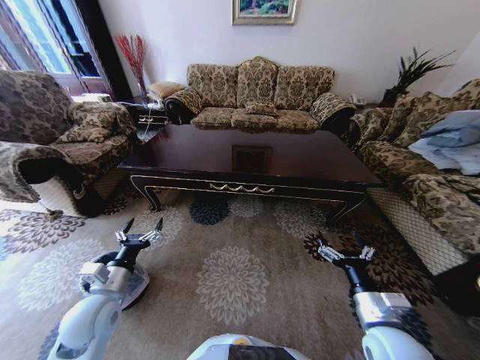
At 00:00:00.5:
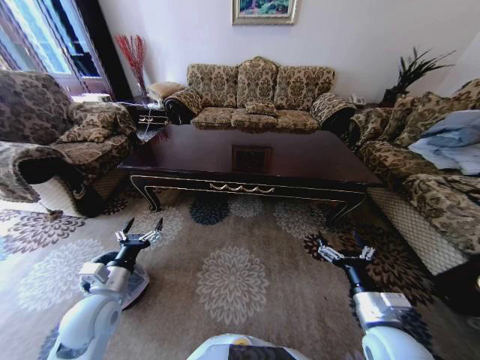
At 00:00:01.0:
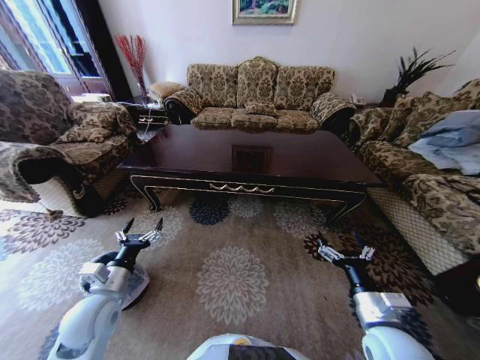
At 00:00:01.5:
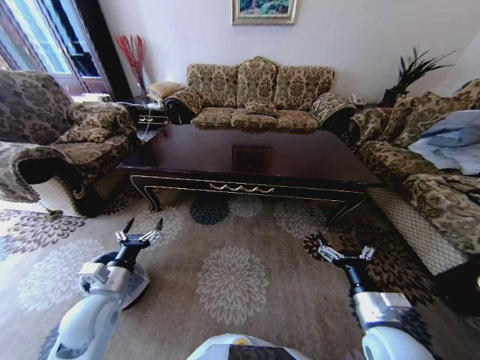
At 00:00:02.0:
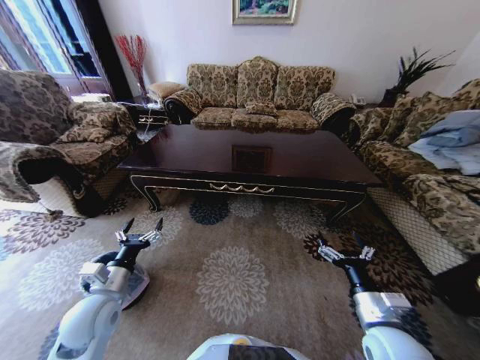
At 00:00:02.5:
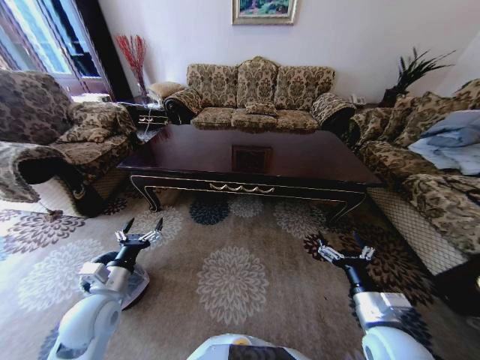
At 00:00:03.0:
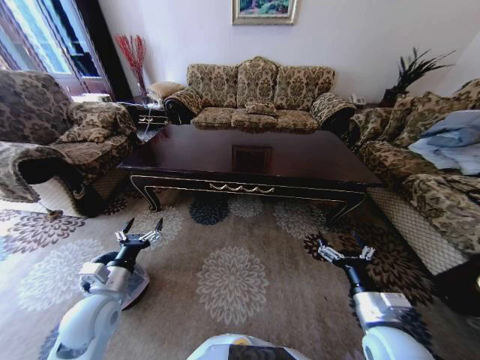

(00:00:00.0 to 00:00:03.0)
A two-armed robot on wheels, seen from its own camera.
Task of the whole recording: Move to the front of the table and place the trash on the table into the trash bin.
00:00:00.0 - 00:00:03.0: Both grippers stay about where they are.

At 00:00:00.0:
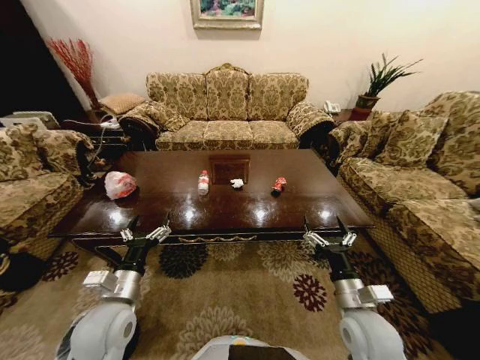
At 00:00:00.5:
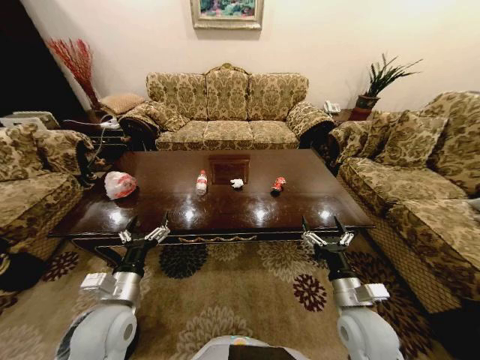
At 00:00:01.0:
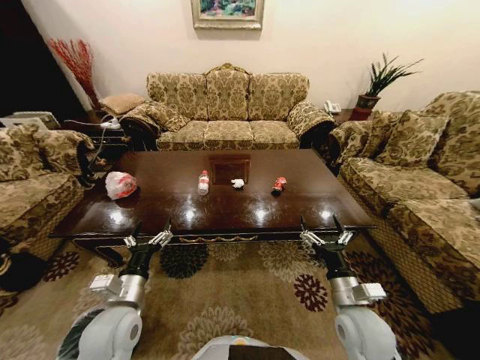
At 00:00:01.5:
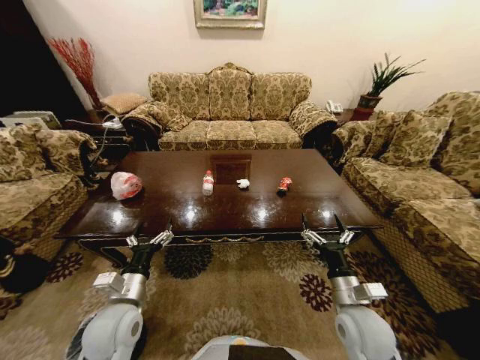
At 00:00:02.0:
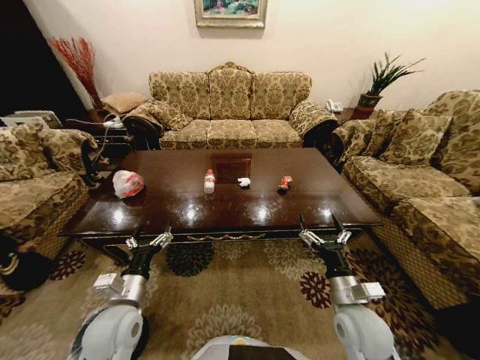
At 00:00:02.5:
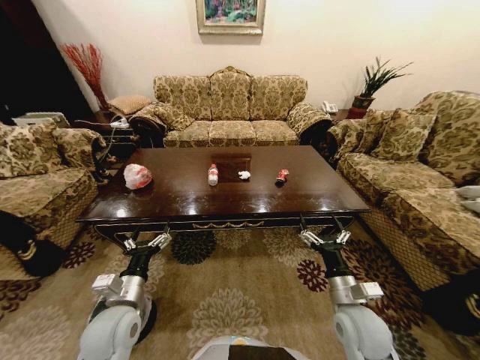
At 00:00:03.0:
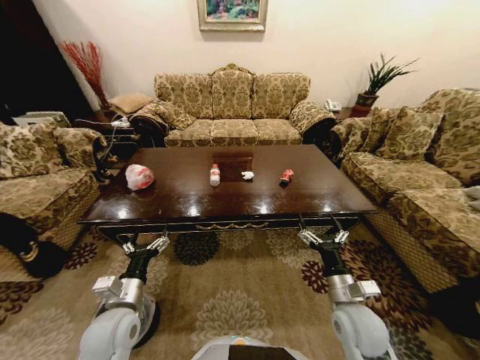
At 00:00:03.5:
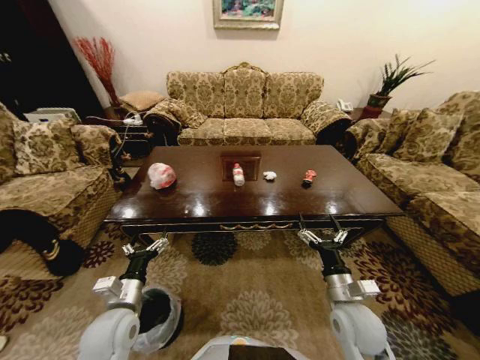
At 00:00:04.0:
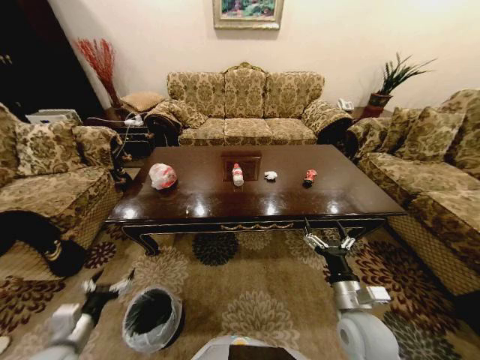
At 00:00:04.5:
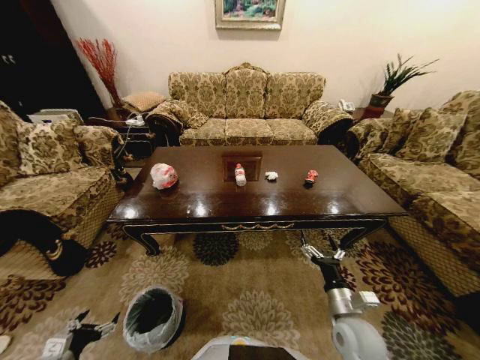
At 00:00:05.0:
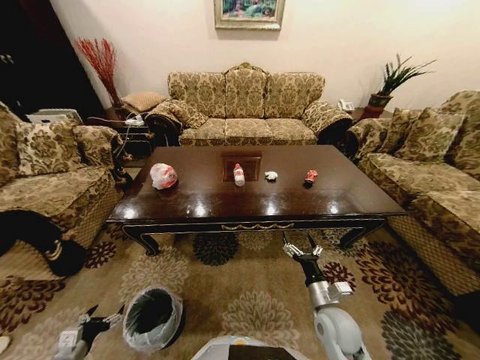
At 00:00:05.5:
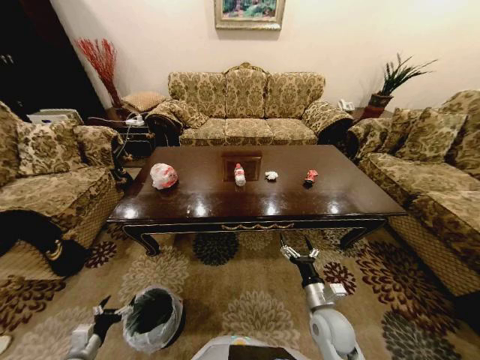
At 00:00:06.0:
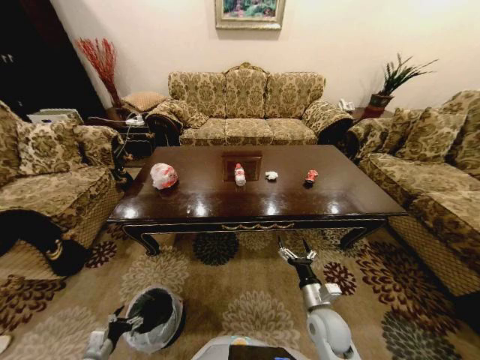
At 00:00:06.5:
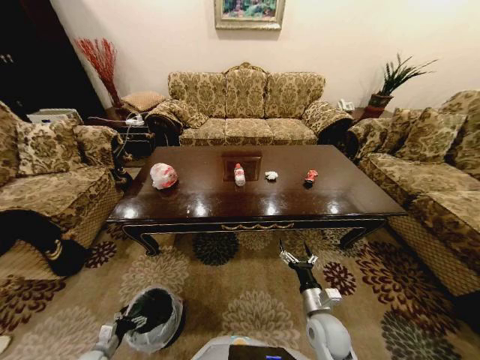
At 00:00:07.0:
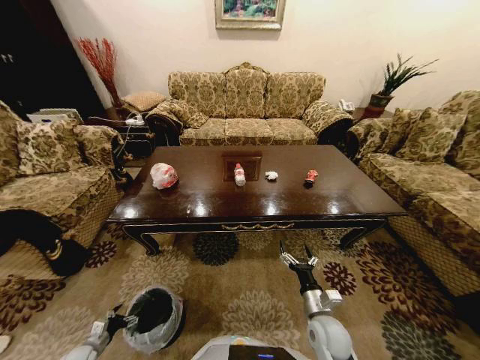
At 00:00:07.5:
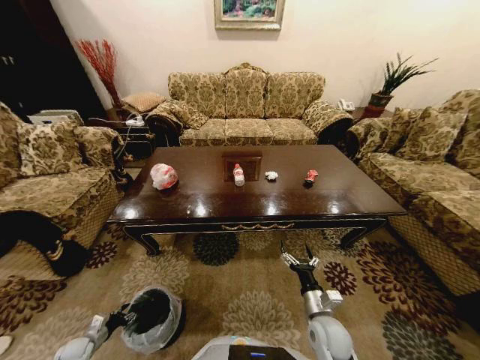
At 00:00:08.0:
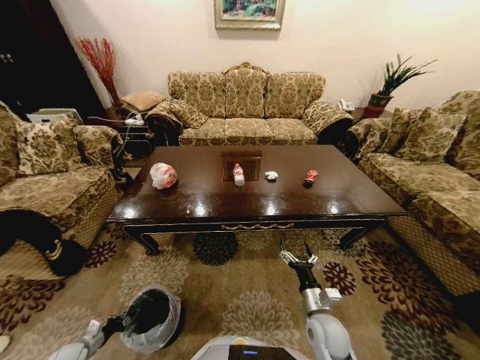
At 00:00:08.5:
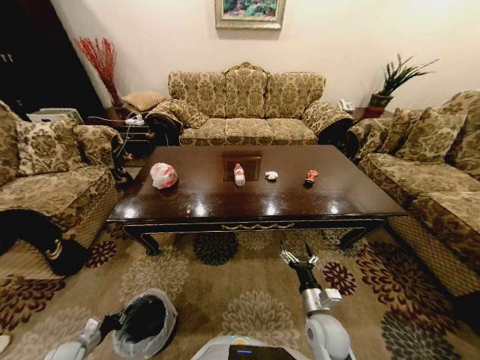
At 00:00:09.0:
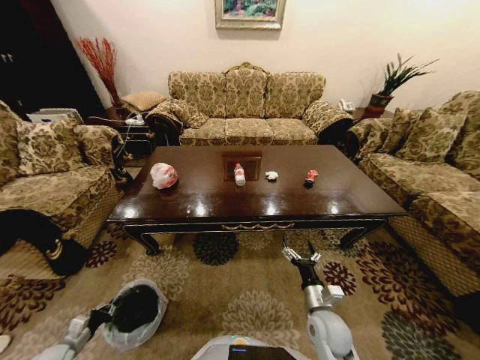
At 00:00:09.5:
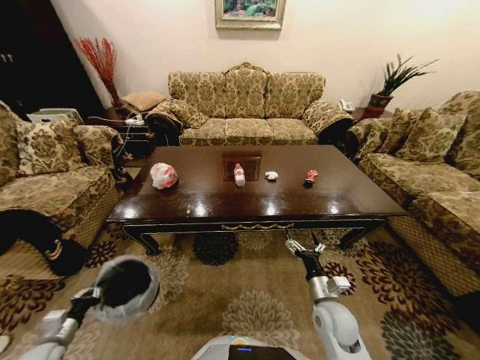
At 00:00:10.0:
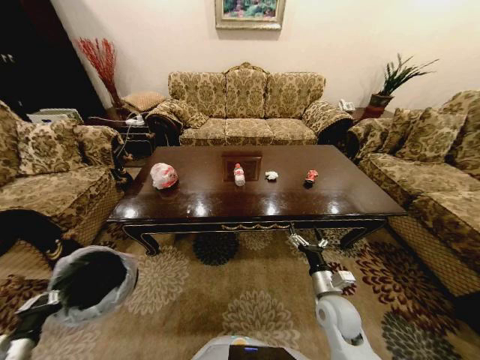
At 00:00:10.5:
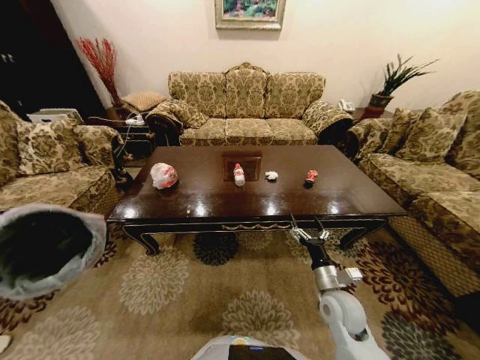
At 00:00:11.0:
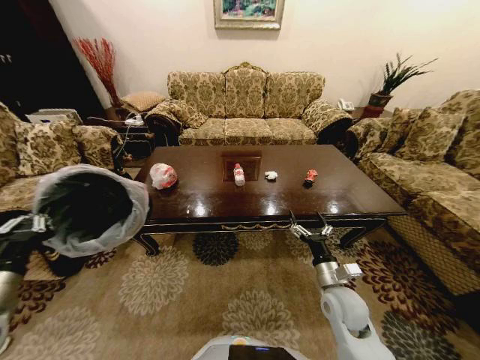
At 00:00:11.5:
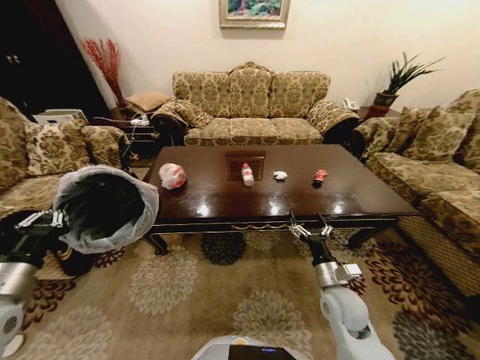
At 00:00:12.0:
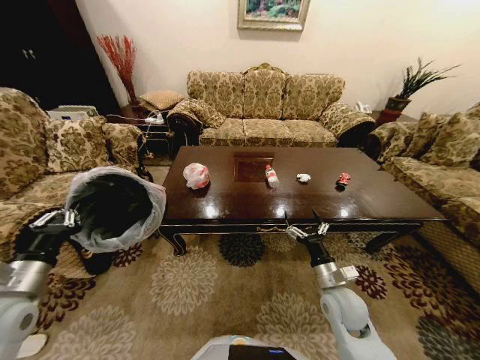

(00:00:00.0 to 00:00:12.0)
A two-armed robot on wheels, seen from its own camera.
Task of the whole recording: Move to the front of the table and place the trash on the table into the trash bin.
00:00:02.0 - 00:00:04.0: The left gripper moves to the left and backward, roughly 15 cm.
00:00:04.0 - 00:00:06.0: The right gripper heads downward, covering approximately 10 cm, while the left gripper shifts approximately 20 cm downward.
00:00:06.0 - 00:00:08.0: The left gripper moves to the left and downward, some 10 cm, and closes its fingers.
00:00:08.0 - 00:00:10.0: The left gripper shifts about 25 cm upward; the right gripper shifts by some 5 cm.
00:00:10.0 - 00:00:12.0: The left gripper shifts about 20 cm upward, forward and to the right.

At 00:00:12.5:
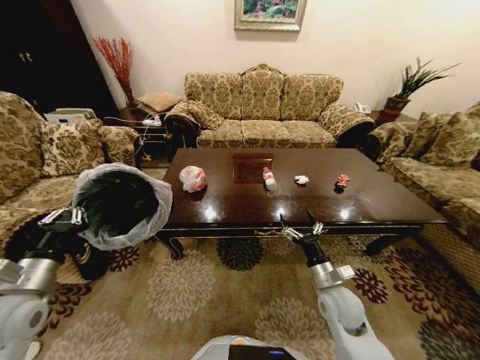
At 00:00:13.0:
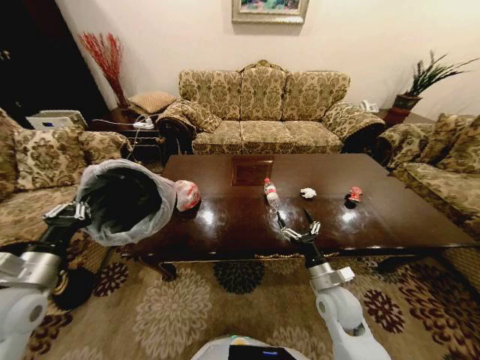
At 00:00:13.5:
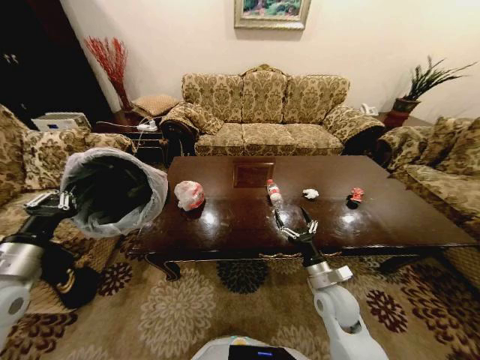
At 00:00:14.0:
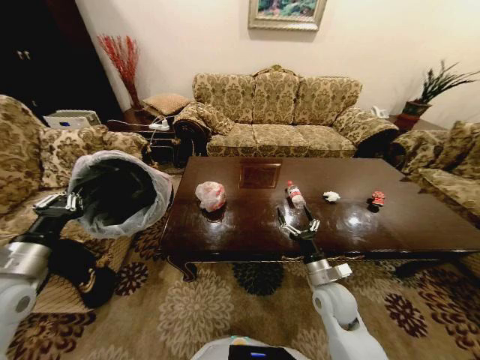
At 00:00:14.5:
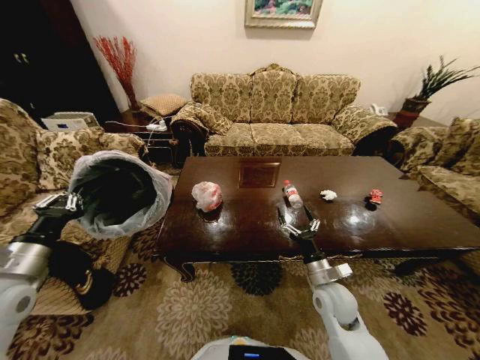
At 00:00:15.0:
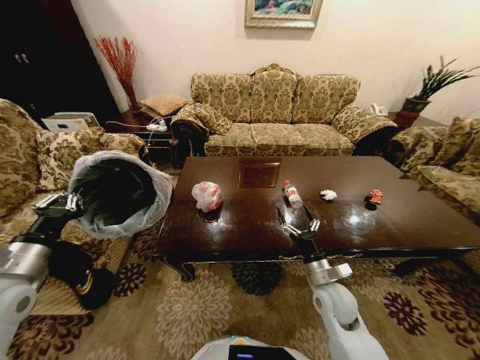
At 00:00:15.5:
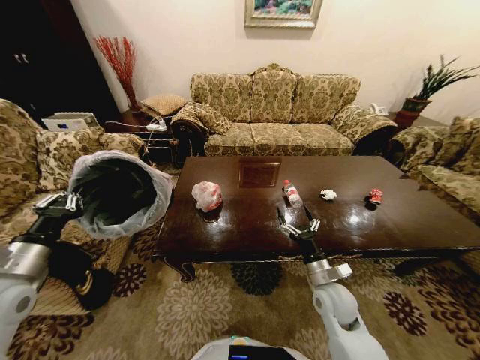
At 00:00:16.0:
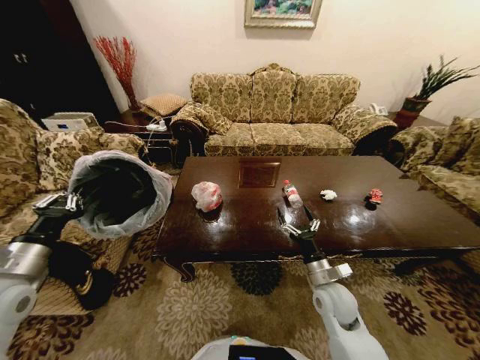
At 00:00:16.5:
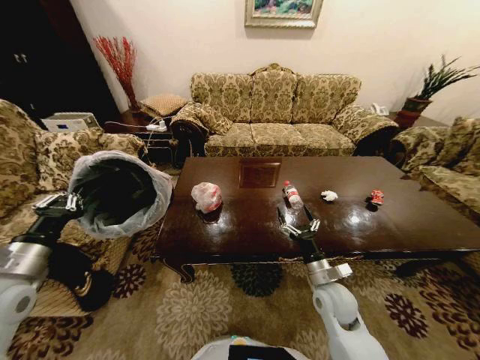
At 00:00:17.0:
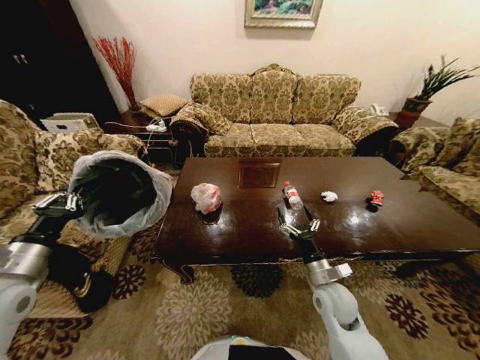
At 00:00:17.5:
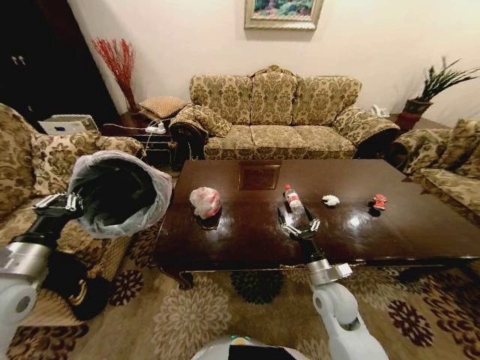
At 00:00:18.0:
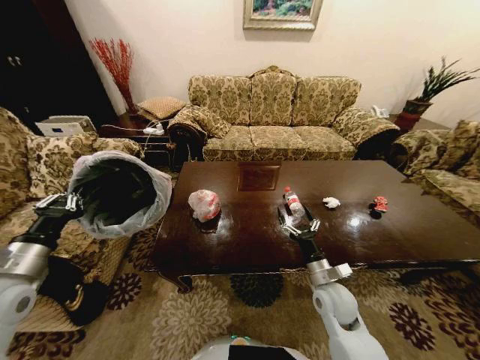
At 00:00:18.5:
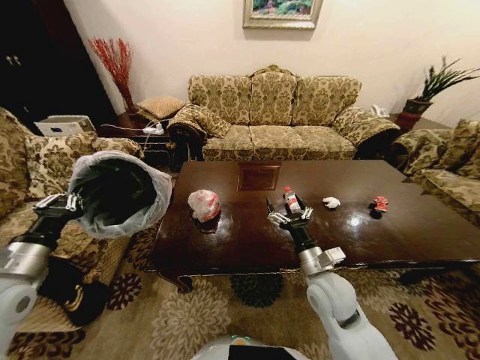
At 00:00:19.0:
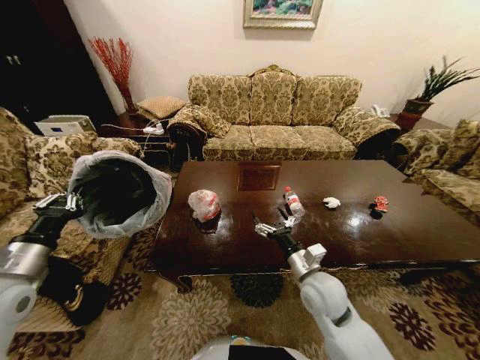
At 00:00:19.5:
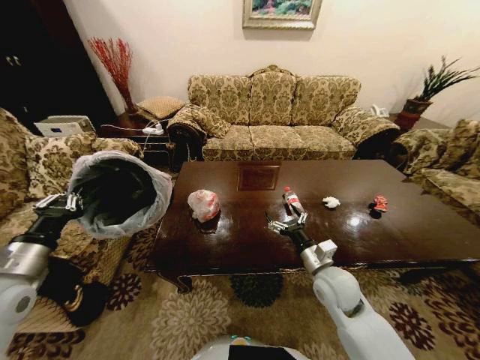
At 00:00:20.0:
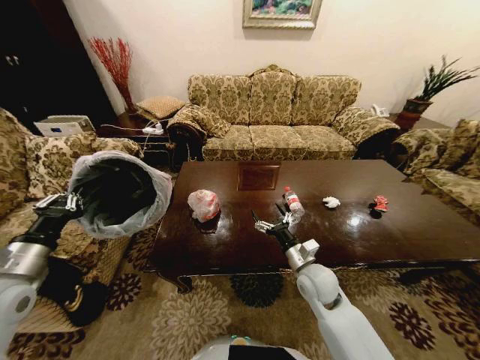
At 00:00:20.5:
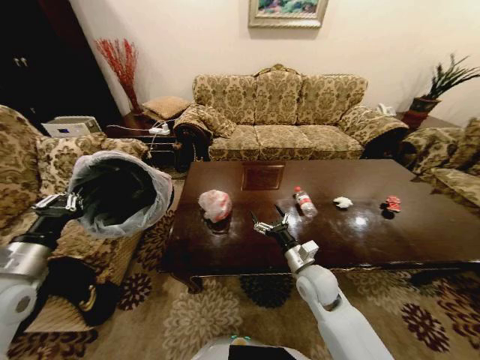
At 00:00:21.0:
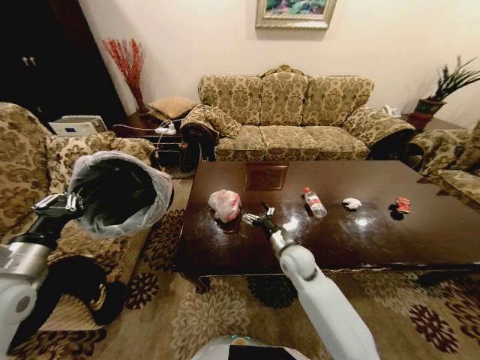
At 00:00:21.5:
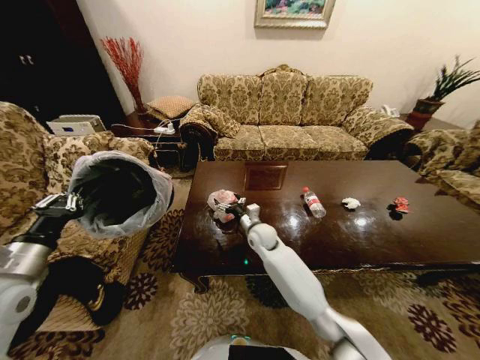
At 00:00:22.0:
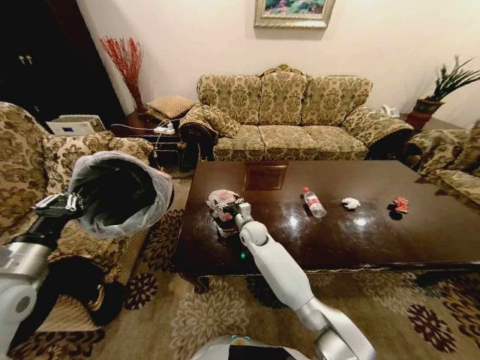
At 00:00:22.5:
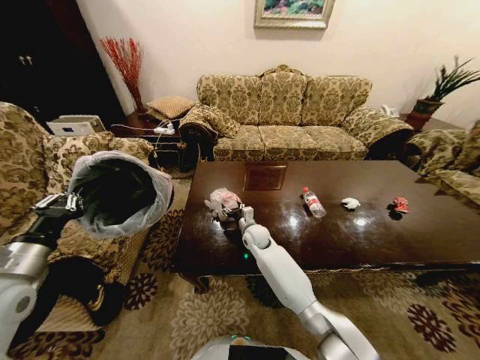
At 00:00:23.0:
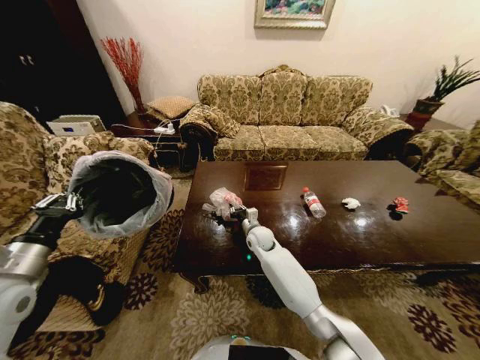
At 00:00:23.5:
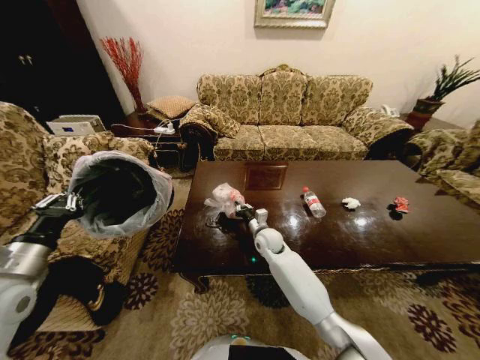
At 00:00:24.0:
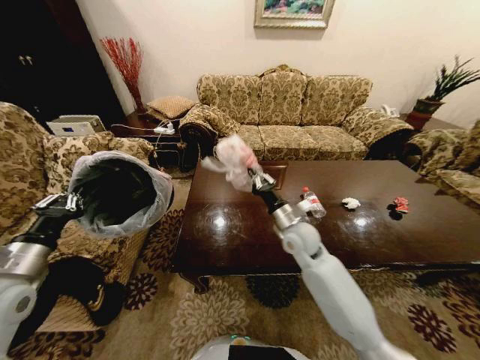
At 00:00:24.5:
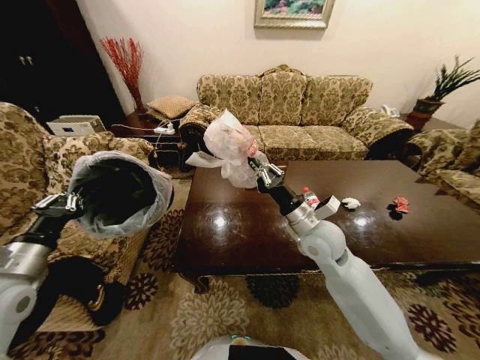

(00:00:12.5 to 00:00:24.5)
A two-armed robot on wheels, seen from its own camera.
Task of the whole recording: Move to the front of the table and place the trash on the table into the trash bin.
00:00:14.5 - 00:00:16.5: Neither gripper changes place.
00:00:16.5 - 00:00:18.5: The right gripper is displaced upward by approximately 5 cm.
00:00:18.5 - 00:00:20.5: The right gripper changes place by roughly 5 cm.
00:00:20.5 - 00:00:22.5: The right gripper goes approximately 25 cm forward and to the left.
00:00:22.5 - 00:00:24.5: The right gripper is displaced upward, to the right and backward by some 25 cm, and closes up.
